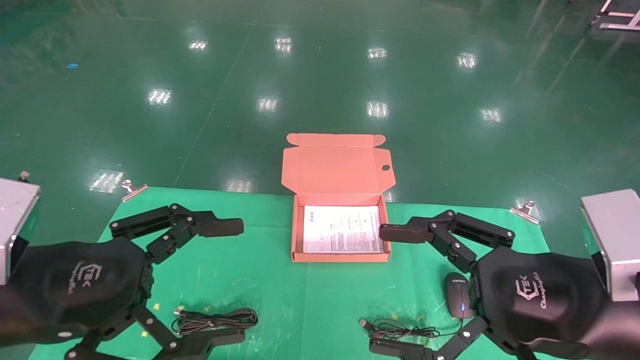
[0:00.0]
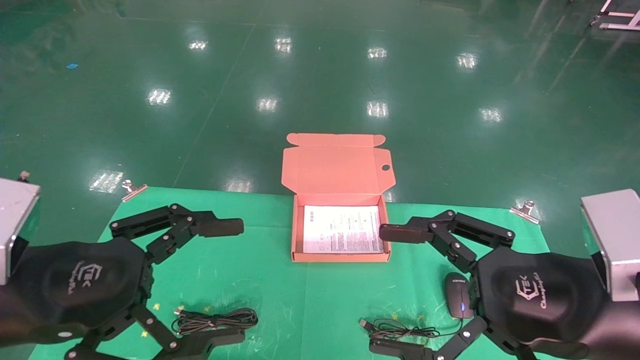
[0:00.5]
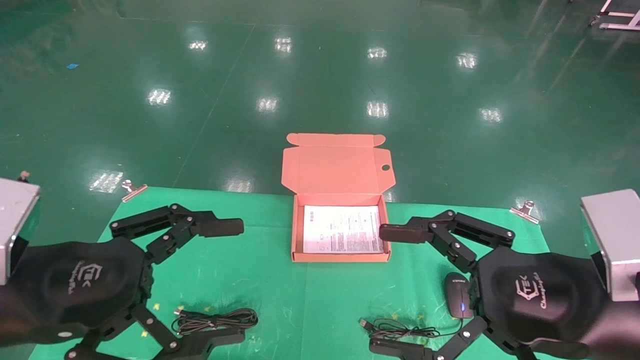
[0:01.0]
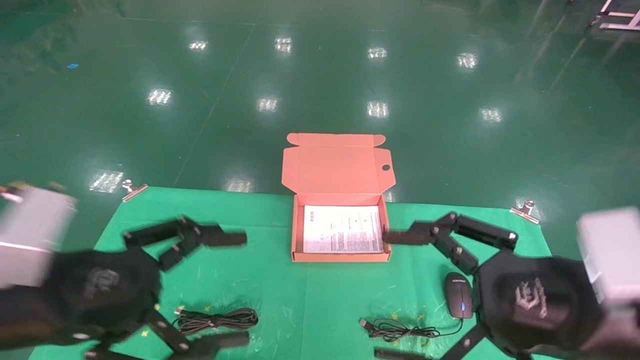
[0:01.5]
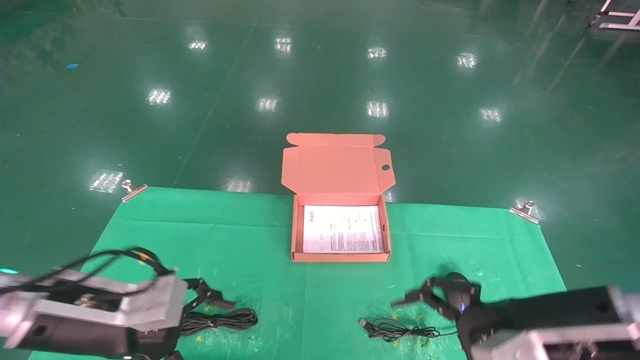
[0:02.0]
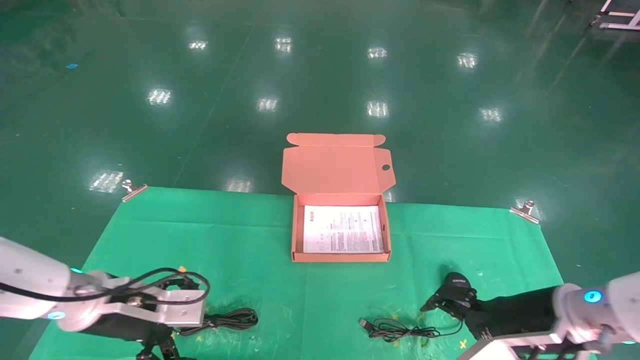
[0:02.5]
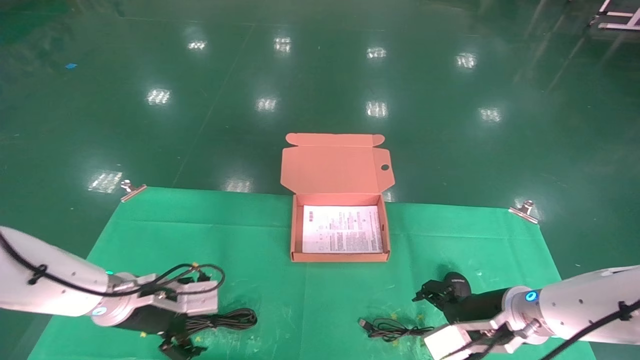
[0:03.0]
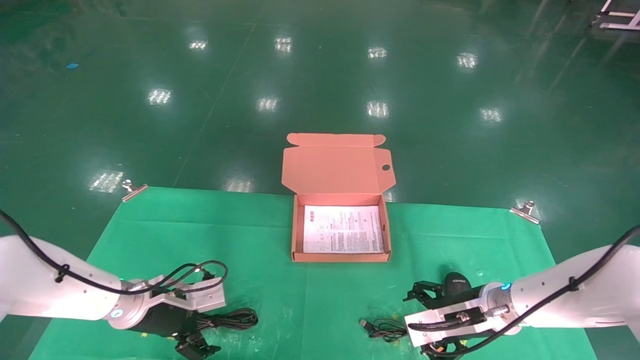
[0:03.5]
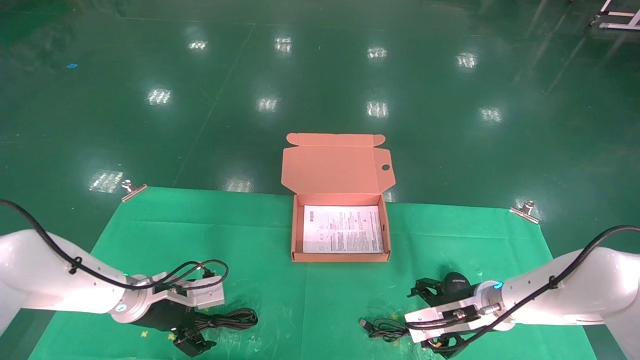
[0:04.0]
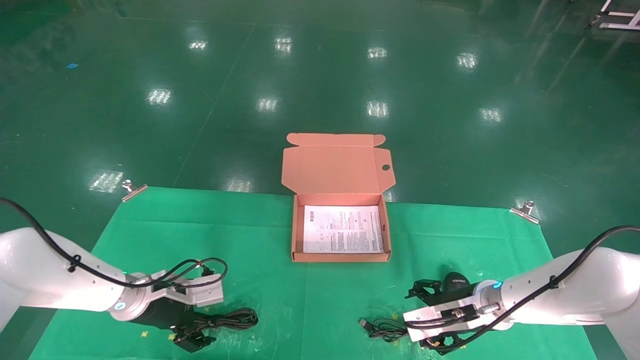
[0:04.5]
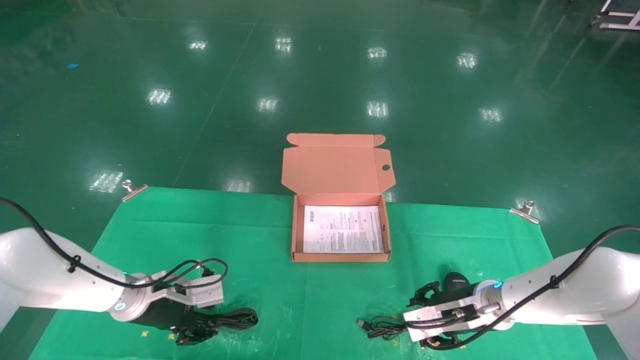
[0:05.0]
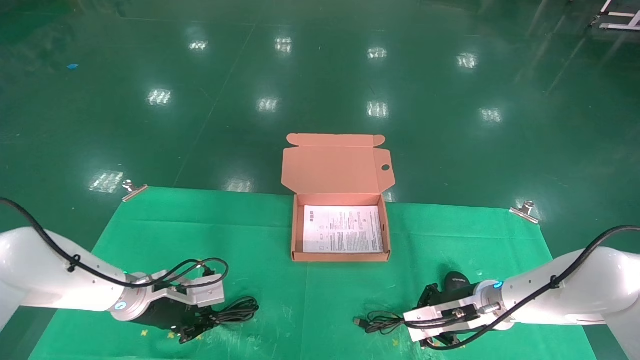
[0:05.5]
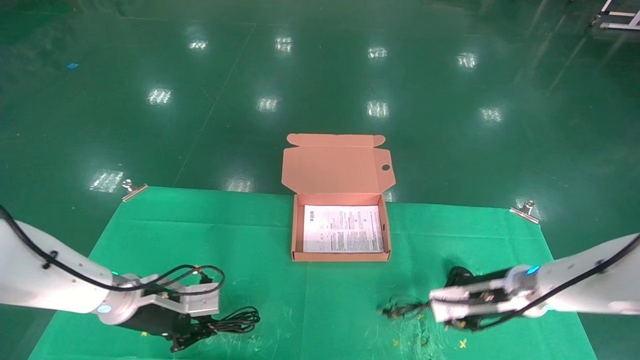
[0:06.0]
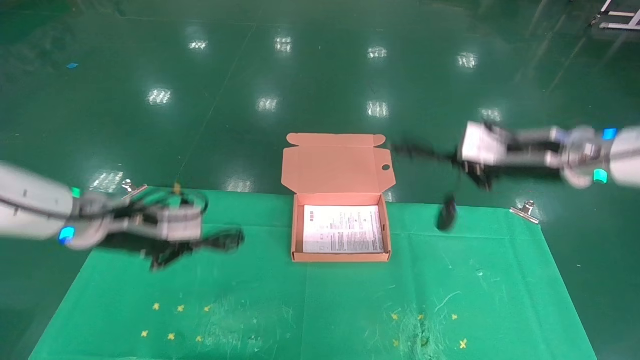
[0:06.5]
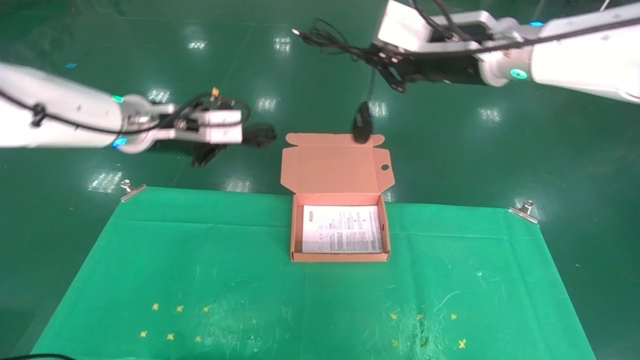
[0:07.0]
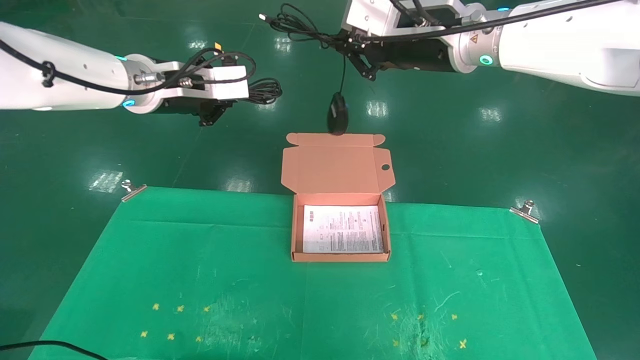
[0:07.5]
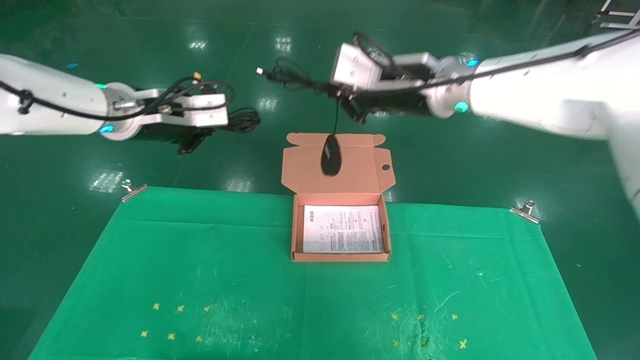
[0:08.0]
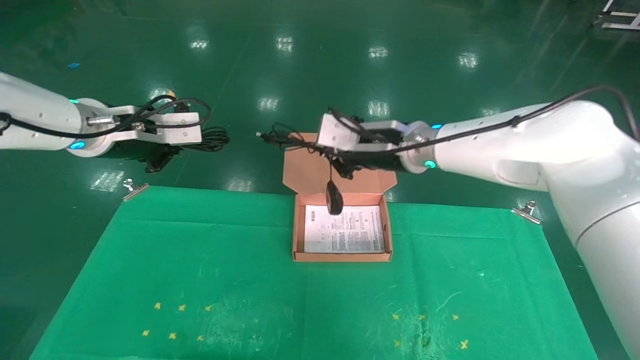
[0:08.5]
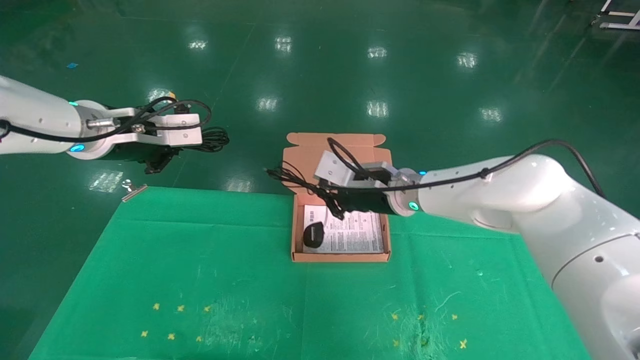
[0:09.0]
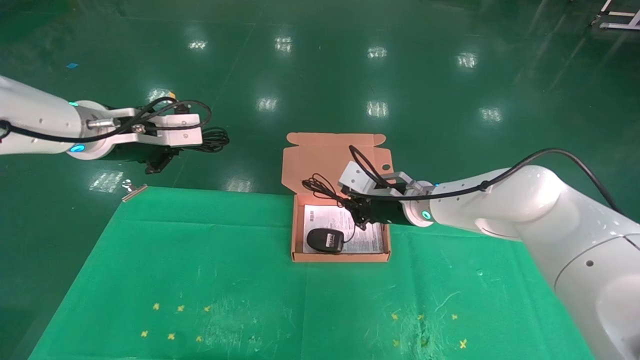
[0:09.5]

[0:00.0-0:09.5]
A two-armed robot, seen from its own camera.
Task of the whole recording: grasp data cable left put into box grasp mouse right put into box.
Step, 0:01.0 to 0:05.5: Grab and pick up both the mouse and power cord from the accessory packaging area at the same time.
0:00.0 to 0:02.0: Both grippers move forward and downward, some 10 cm.
0:02.0 to 0:04.0: The two grippers go about 20 cm forward and downward.
0:04.0 to 0:05.5: The left gripper closes. Meanwhile the right gripper closes its fingers.
0:05.5 to 0:07.5: The two grippers go some 35 cm upward.
0:07.5 to 0:09.5: The left gripper shifts by approximately 5 cm. Meanwhile the right gripper goes roughly 25 cm downward.

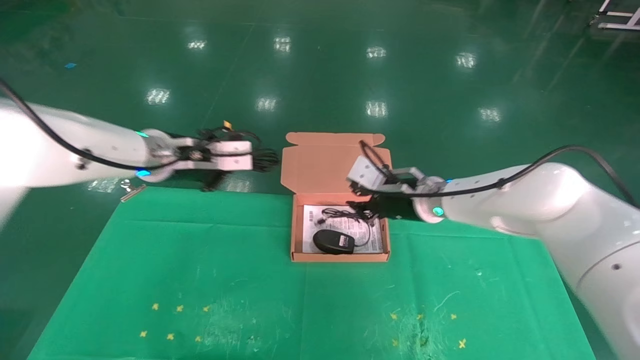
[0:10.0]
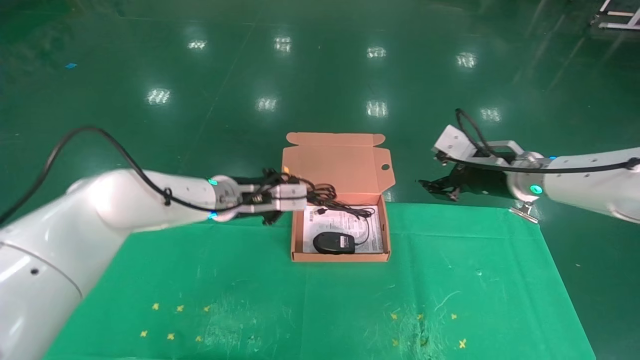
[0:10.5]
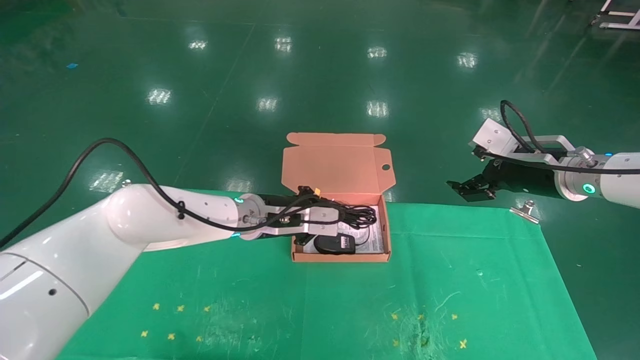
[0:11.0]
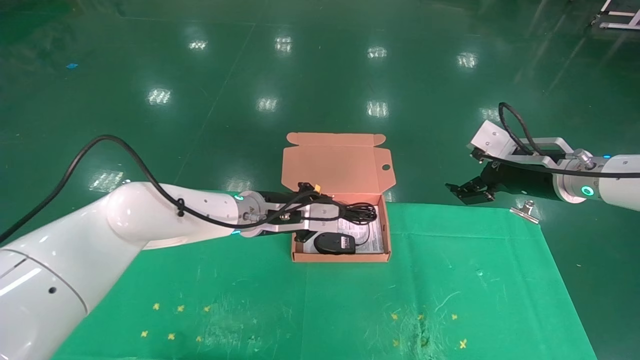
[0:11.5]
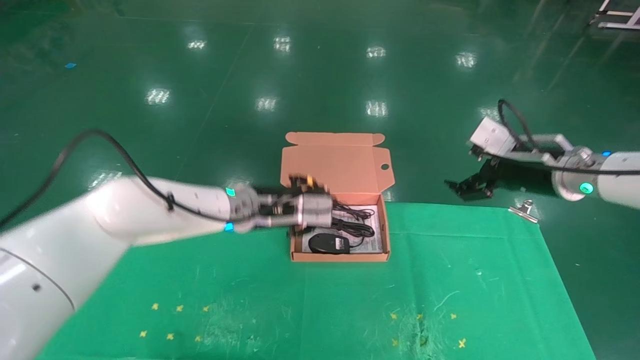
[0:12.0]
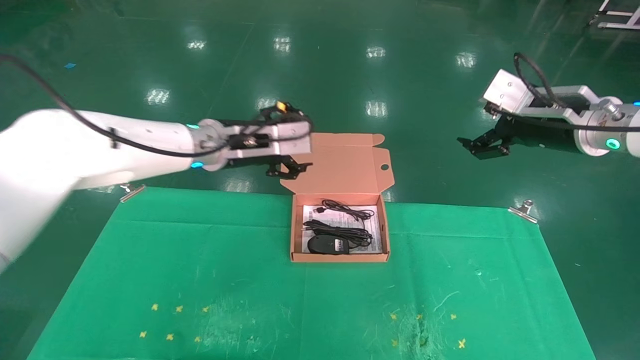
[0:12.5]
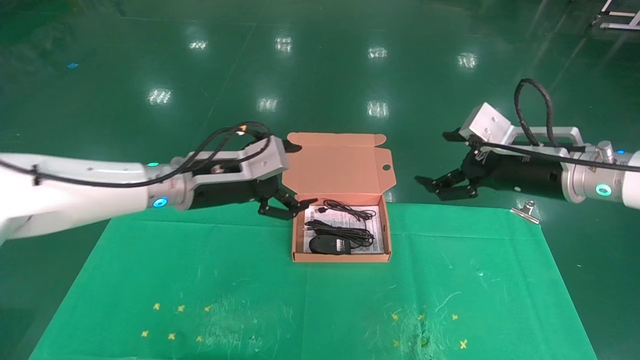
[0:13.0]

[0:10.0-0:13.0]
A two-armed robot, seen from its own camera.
Task of the whole recording: grasp data cable left put into box grasp mouse right put into box.
0:10.0 to 0:11.5: The left gripper heads to the right and downward, covering roughly 15 cm, while the right gripper is displaced to the right by some 15 cm, and opens.
0:11.5 to 0:13.0: The right gripper moves some 5 cm. The left gripper shifts about 10 cm to the left, upward and backward, and opens.

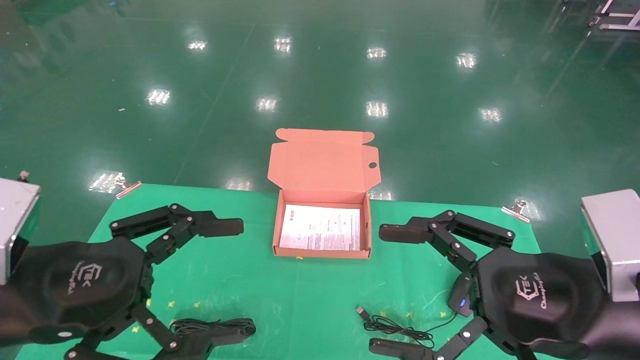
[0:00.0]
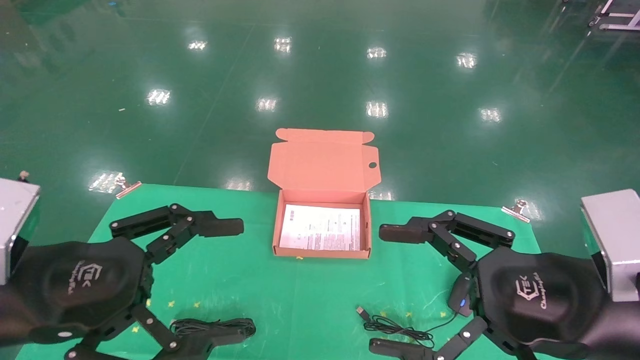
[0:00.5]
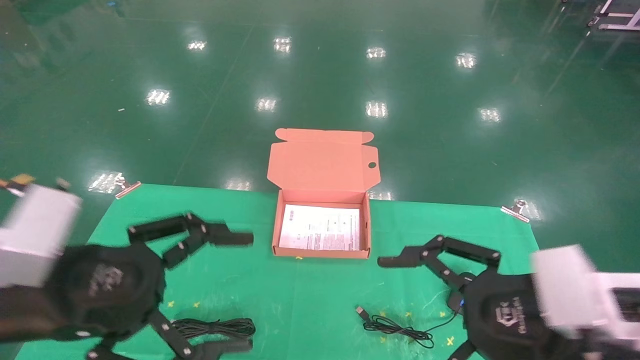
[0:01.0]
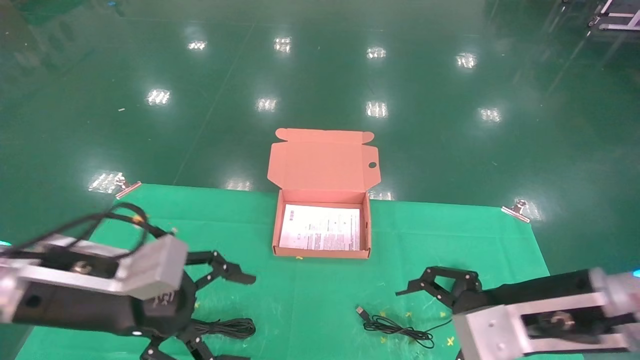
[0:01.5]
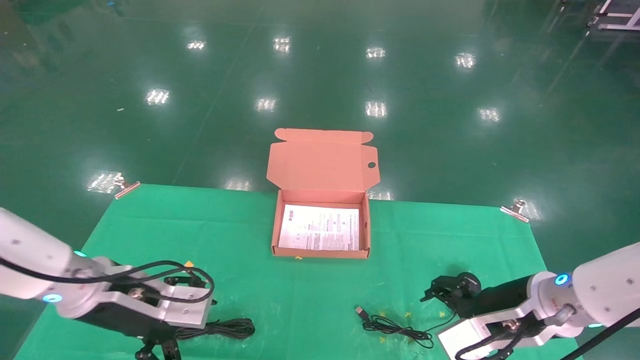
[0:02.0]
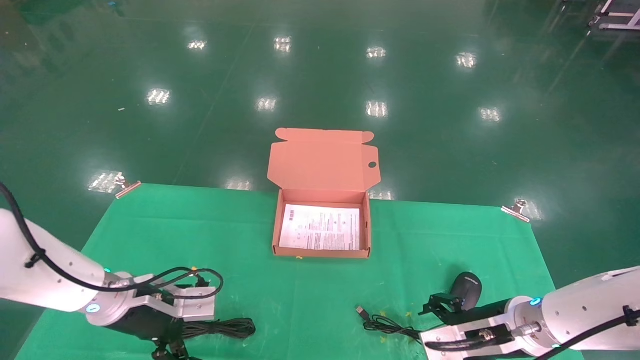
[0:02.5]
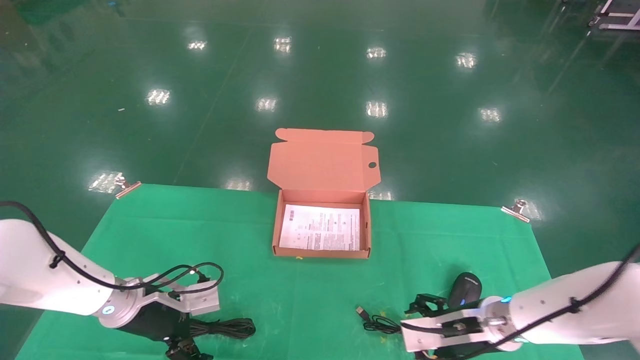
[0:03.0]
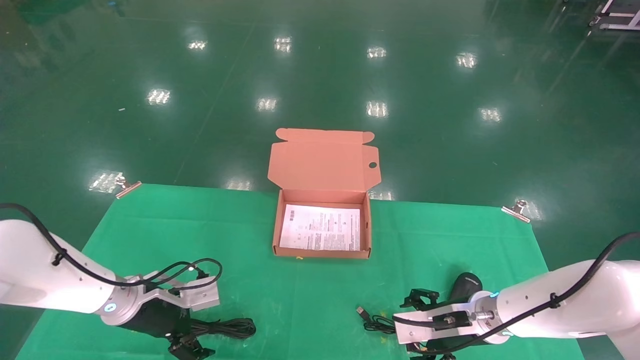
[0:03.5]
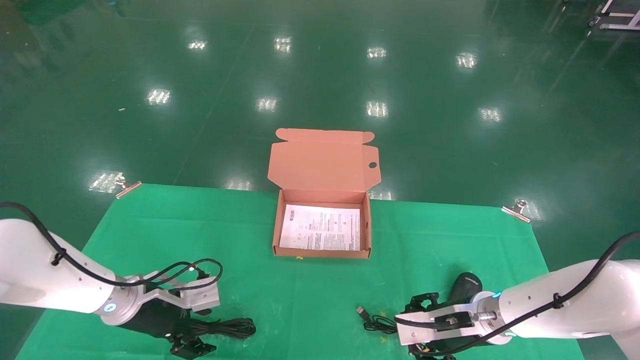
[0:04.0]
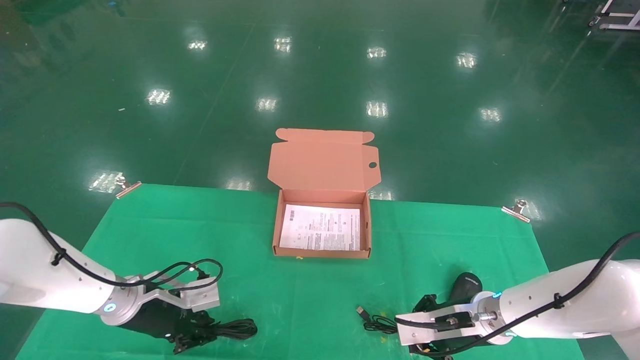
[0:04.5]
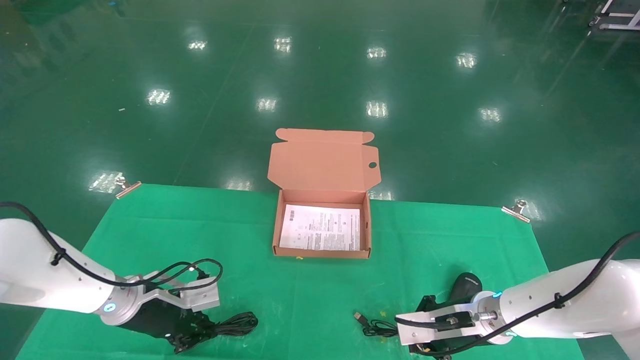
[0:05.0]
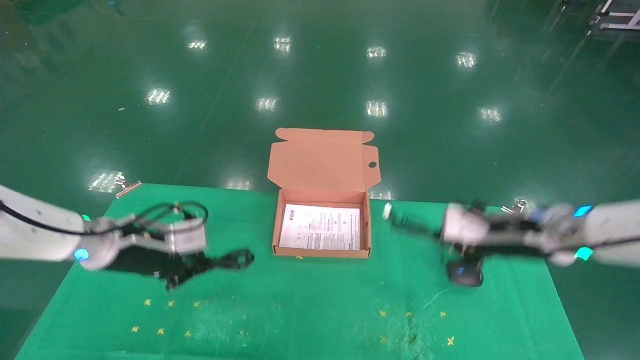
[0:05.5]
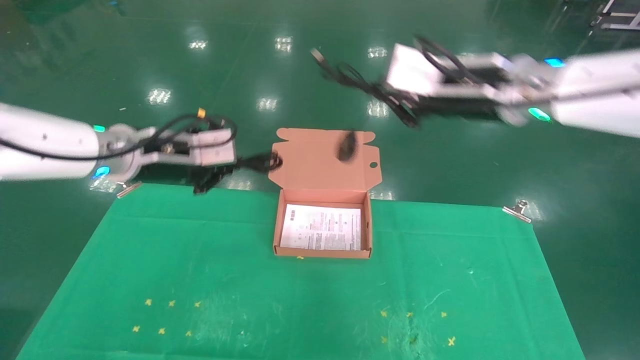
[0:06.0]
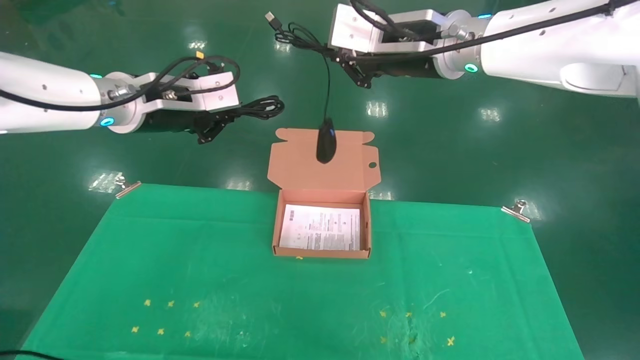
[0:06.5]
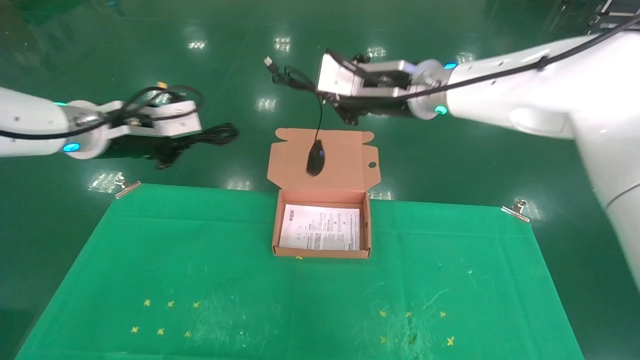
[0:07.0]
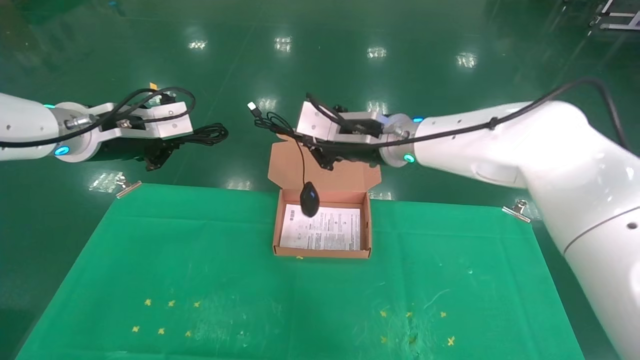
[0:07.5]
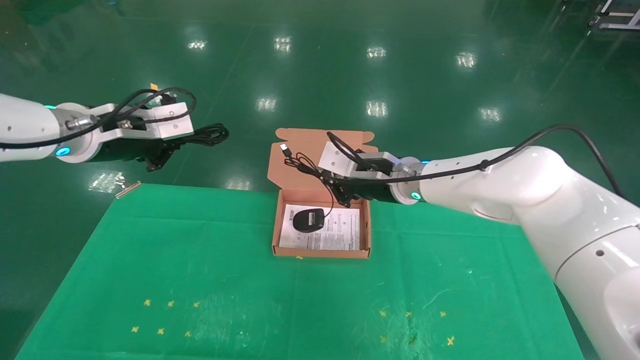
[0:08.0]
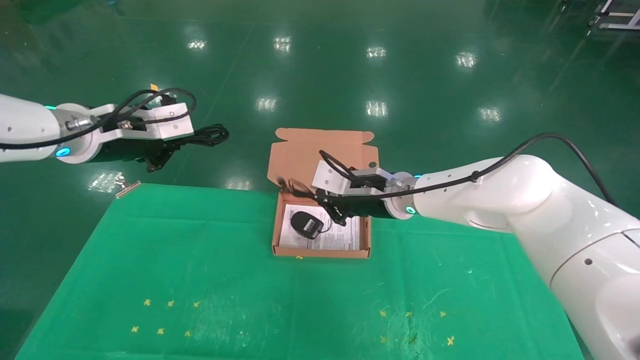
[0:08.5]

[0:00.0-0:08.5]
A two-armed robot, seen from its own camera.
Task of the whole recording: grasp data cable left put into box grasp mouse right put into box.
Step, 0:01.0 to 0:05.0: Grab and pick up both the mouse and power cord from the accessory packaging area at the same time.
0:00.0 to 0:02.0: Both grippers travel together forward and downward, about 15 cm.
0:02.0 to 0:04.0: Both grippers move downward and forward, some 10 cm.
0:04.0 to 0:06.5: Both grippers travel together upward, approximately 35 cm. The left gripper closes its fingers. Meanwhile the right gripper closes.
0:06.5 to 0:08.5: The right gripper goes approximately 20 cm downward; the left gripper ends up some 5 cm from where it was.
